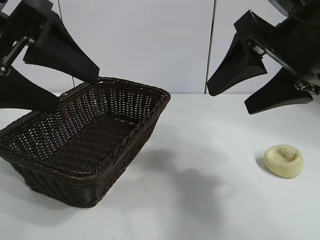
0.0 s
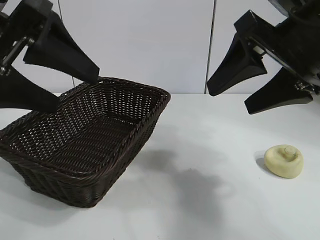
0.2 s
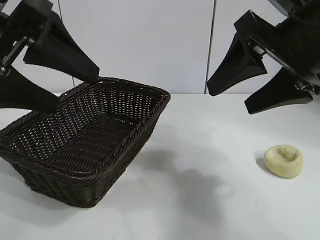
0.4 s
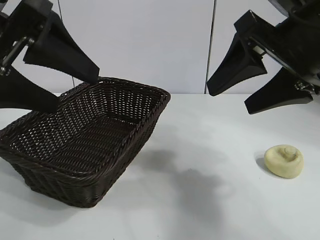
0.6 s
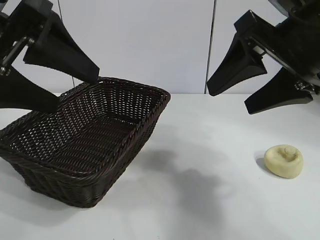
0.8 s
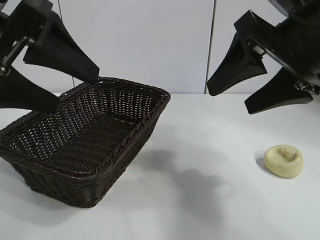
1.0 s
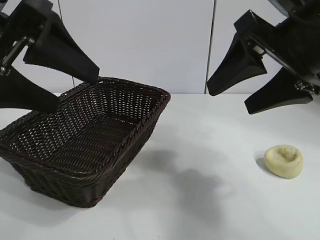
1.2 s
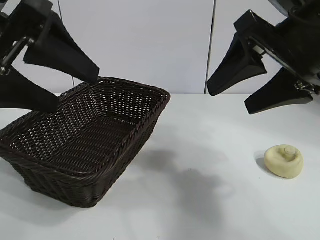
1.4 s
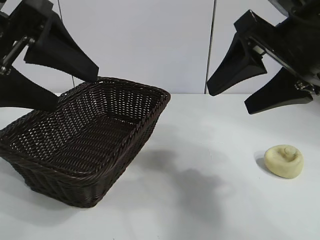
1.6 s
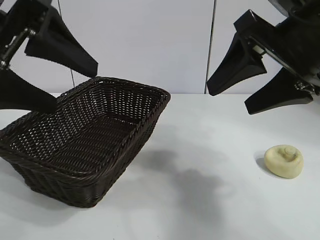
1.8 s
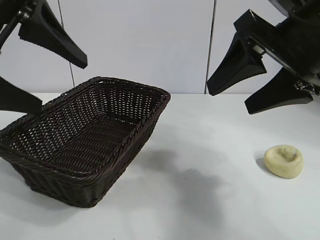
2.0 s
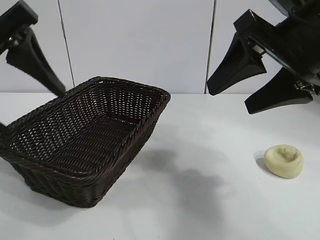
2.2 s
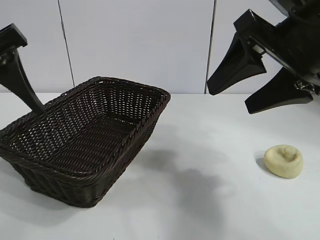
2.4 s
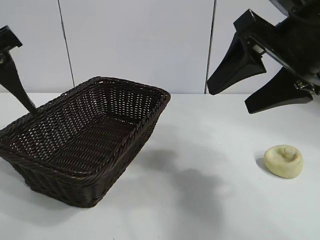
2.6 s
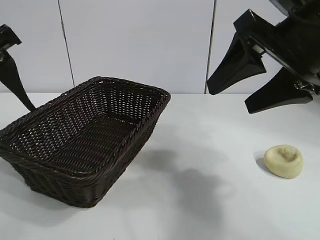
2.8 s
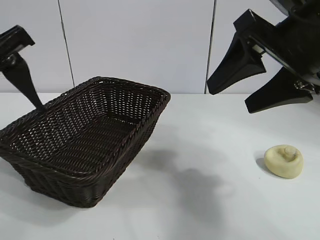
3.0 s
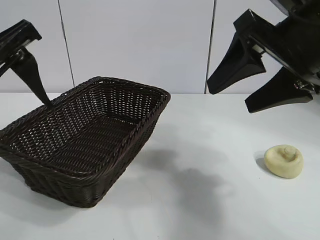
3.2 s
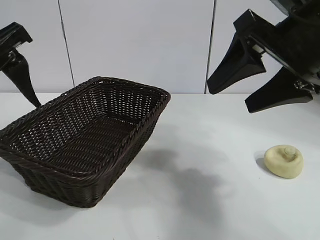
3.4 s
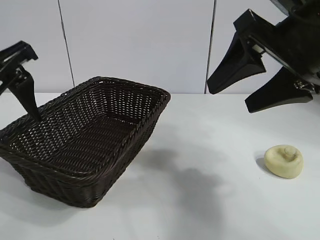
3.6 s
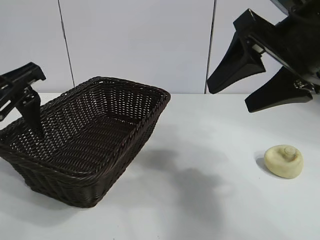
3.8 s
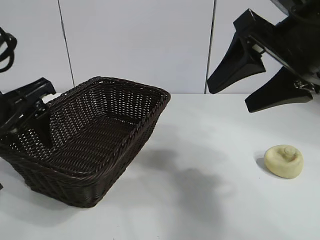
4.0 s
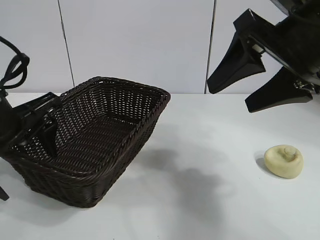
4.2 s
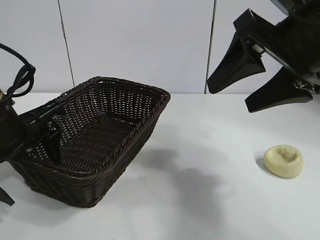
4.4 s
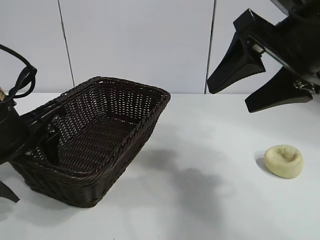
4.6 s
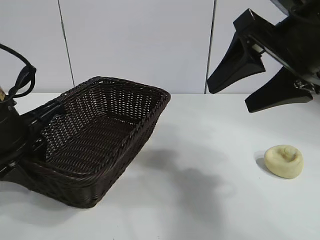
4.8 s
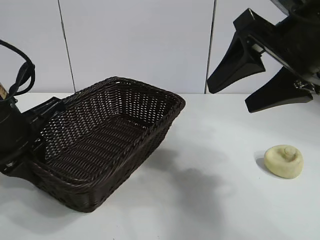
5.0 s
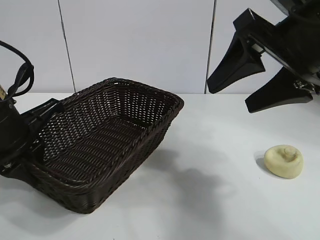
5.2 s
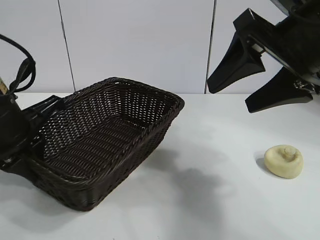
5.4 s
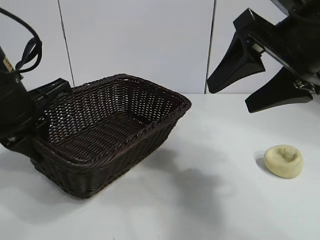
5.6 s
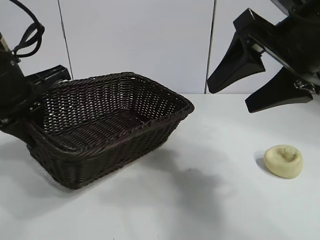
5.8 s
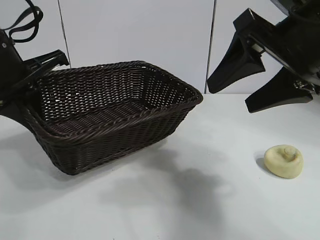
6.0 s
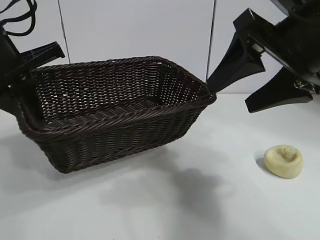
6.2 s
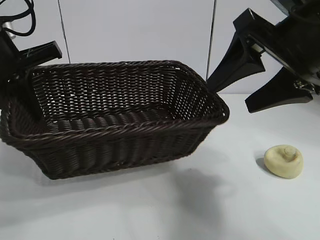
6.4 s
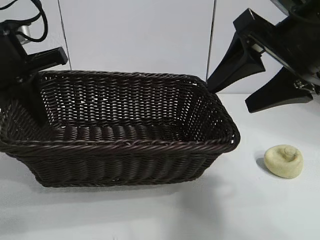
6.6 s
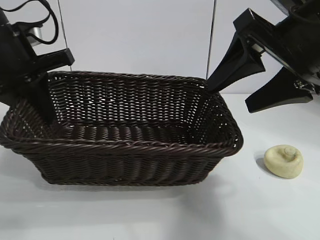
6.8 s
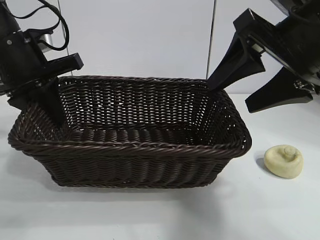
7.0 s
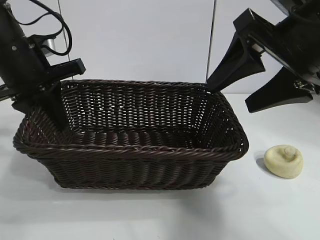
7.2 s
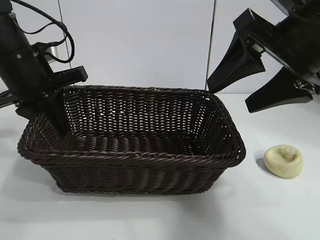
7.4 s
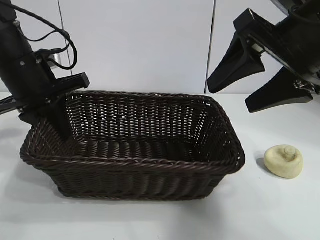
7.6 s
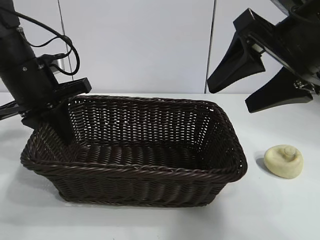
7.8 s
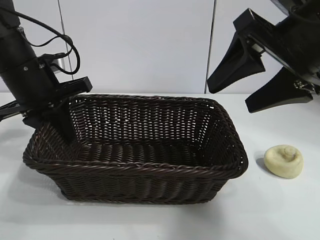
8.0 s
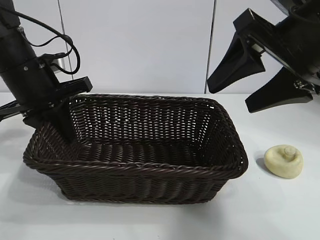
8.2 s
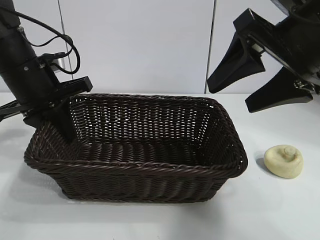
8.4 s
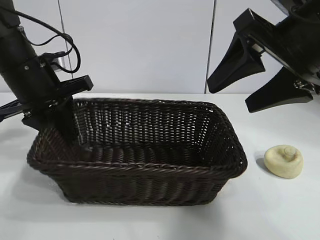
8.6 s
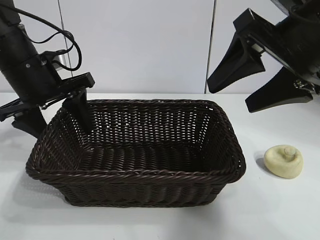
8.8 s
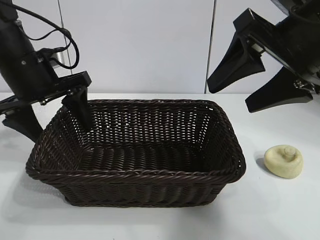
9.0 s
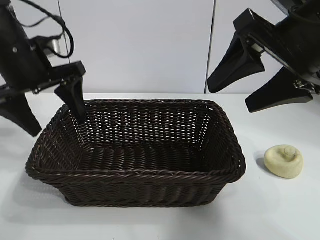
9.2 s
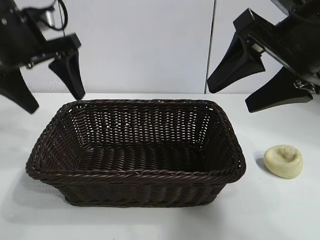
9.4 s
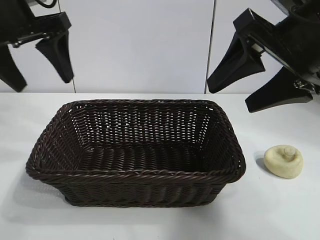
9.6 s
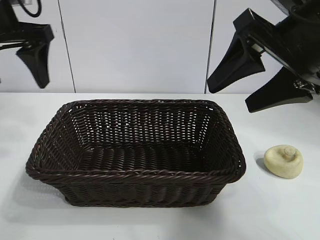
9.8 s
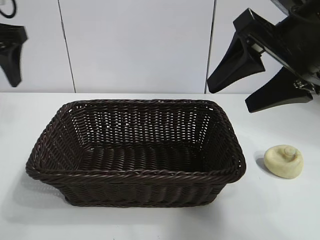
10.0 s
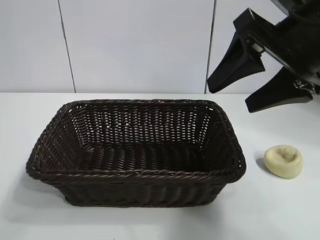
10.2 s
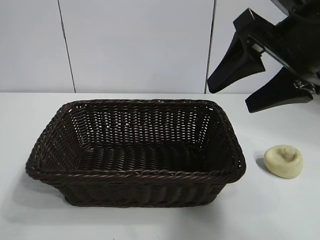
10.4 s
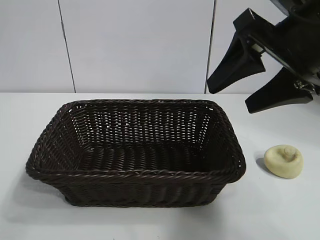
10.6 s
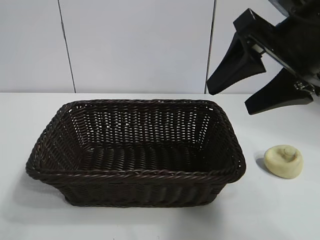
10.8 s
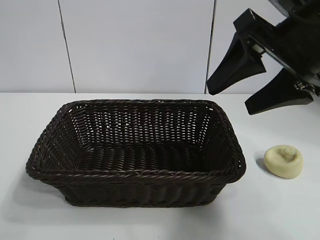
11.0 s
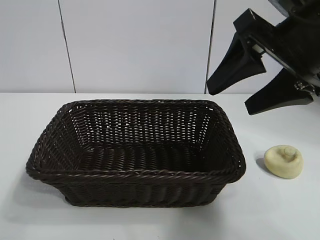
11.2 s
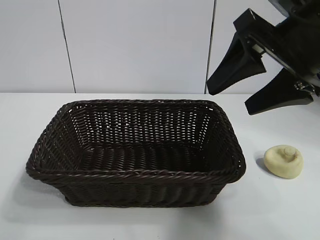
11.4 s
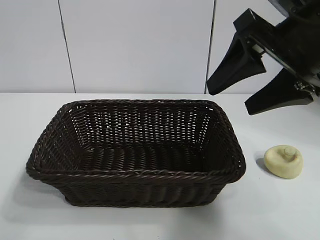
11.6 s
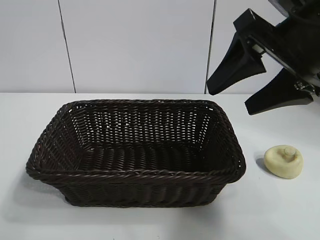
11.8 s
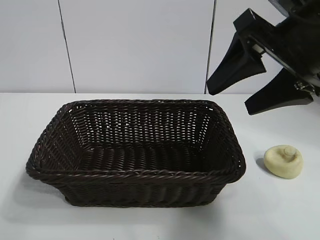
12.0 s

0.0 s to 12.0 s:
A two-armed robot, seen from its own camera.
Task of the whole recording: pick up the egg yolk pastry and put it into the basket.
Step, 1.6 to 4.8 s: Grasp the basket with left gripper.
Step, 5.0 to 8.8 s: Place the basket in the center of view with left gripper.

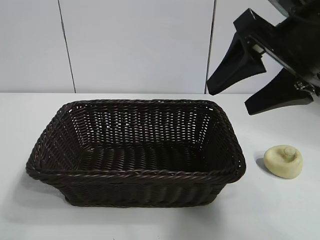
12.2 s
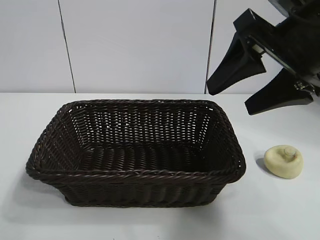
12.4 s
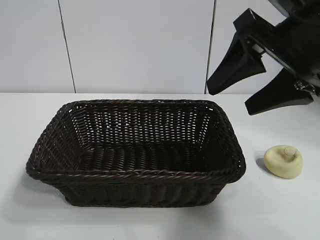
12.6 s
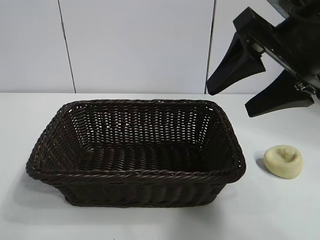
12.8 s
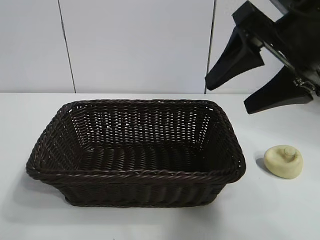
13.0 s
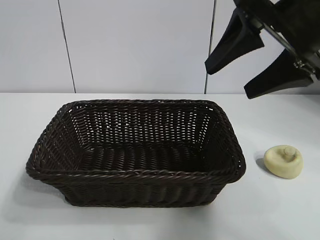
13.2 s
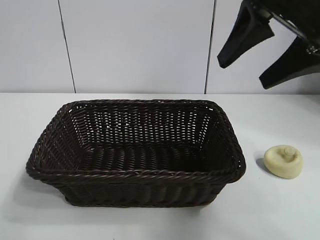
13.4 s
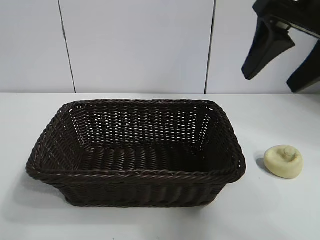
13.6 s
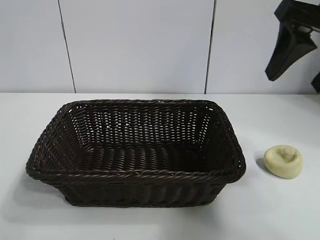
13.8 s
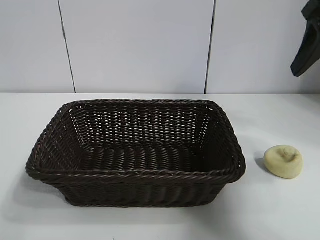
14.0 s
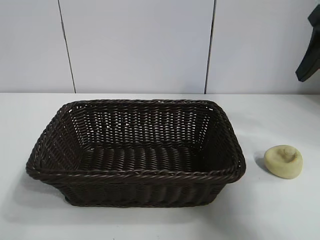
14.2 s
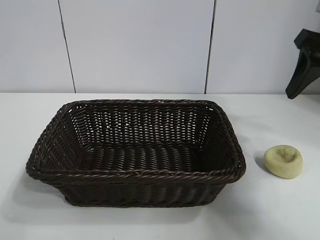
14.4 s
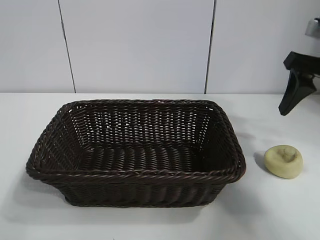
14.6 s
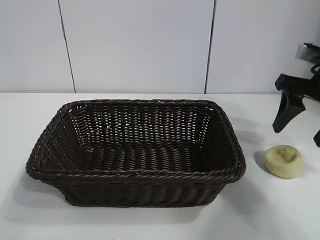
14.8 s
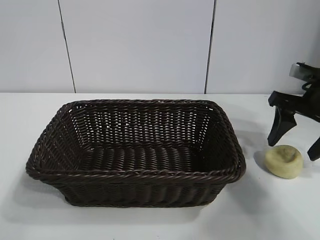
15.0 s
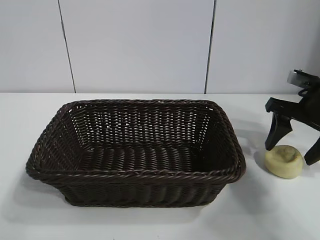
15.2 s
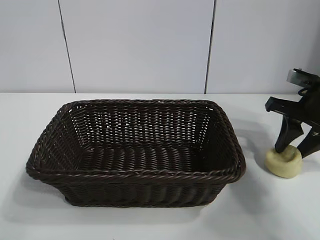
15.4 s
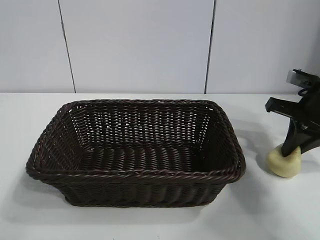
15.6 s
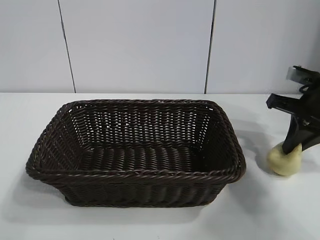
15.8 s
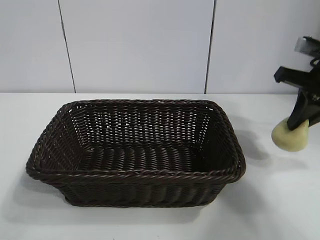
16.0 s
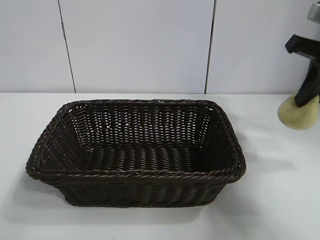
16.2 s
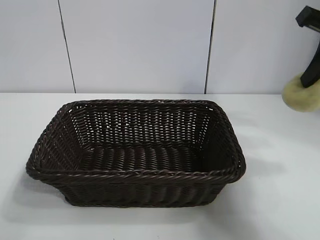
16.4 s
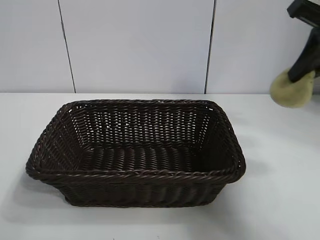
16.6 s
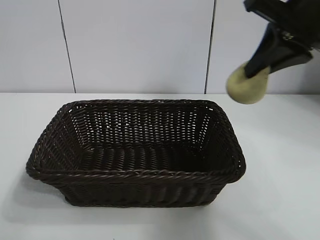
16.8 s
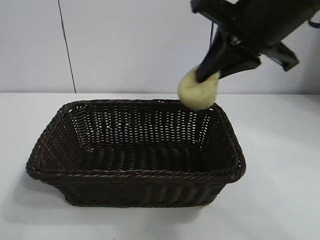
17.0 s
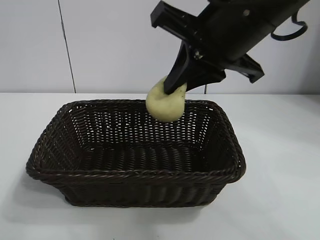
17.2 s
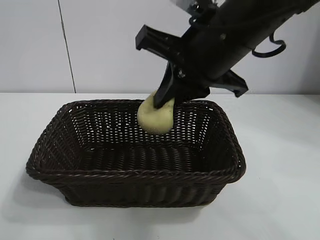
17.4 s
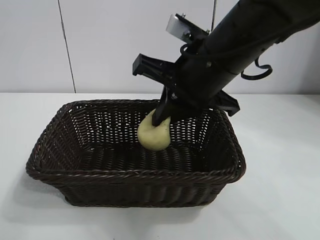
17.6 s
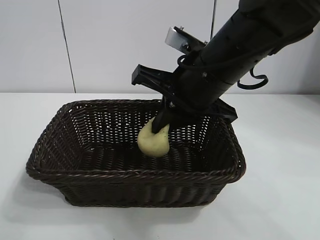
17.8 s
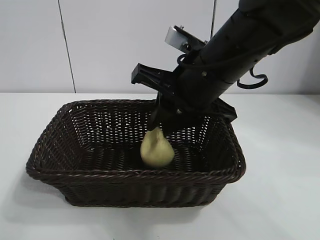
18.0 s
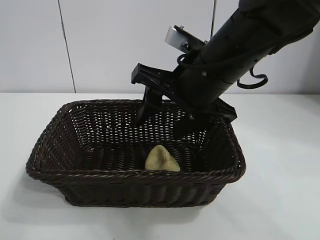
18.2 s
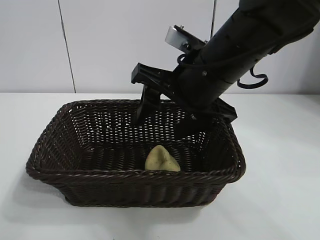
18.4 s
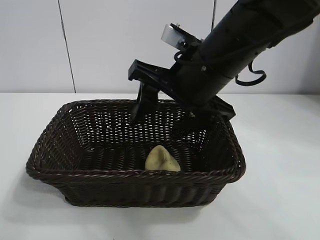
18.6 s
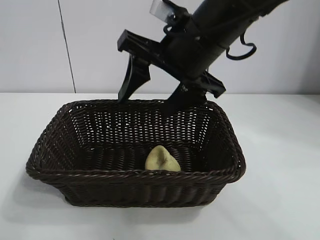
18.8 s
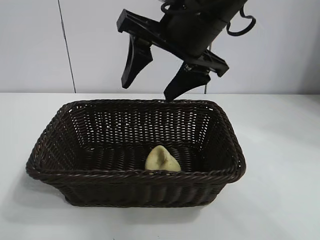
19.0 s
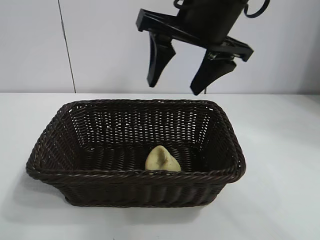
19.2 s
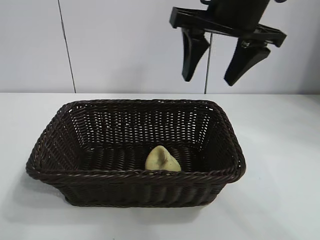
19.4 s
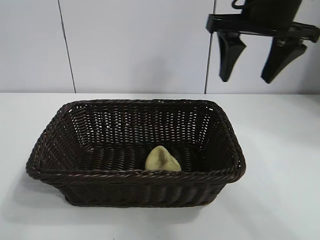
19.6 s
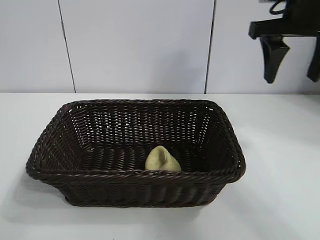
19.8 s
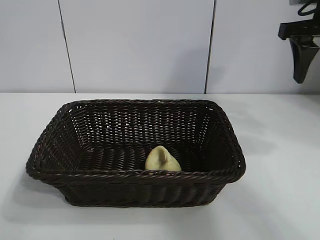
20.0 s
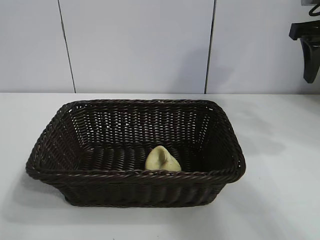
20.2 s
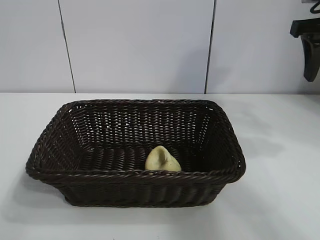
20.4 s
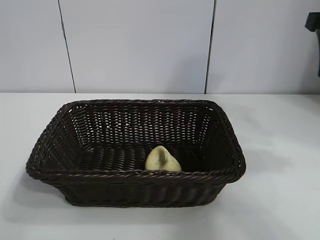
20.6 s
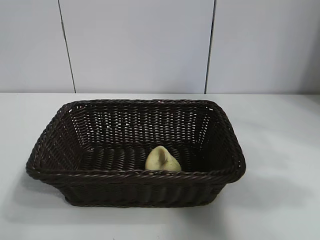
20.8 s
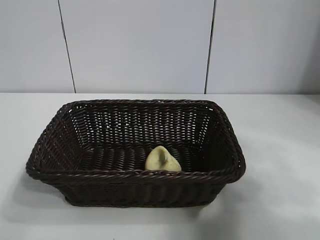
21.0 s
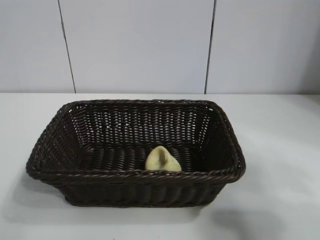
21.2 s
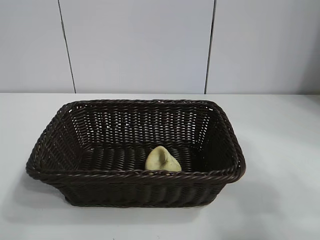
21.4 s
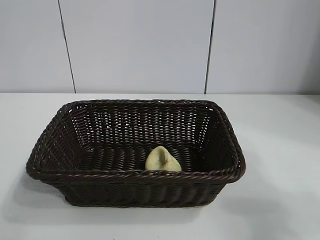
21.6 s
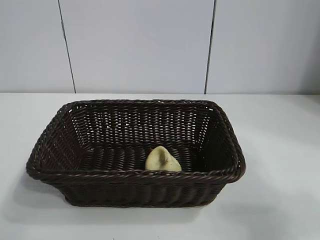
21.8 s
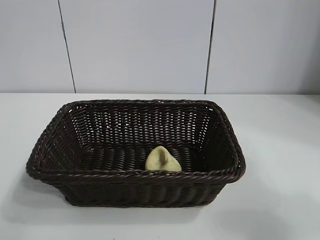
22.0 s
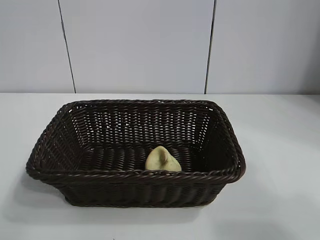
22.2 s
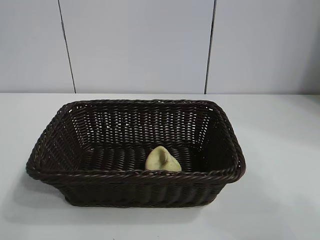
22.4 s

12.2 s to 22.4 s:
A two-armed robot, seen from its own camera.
Task of the whole recording: pick up the egg yolk pastry and put it into the basket.
Step, 12.2 to 15.6 s: Grasp egg yolk pastry with right gripper.
Step, 15.8 to 18.2 s: Place the egg yolk pastry in the basket with right gripper.

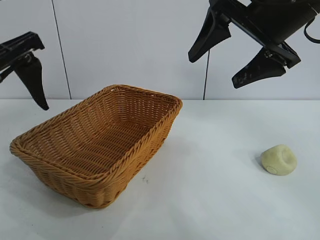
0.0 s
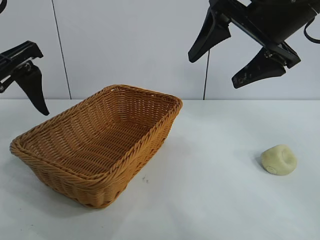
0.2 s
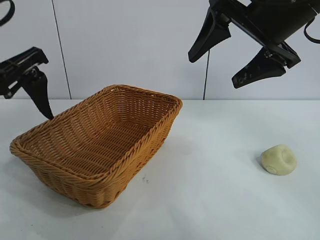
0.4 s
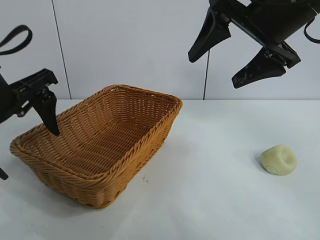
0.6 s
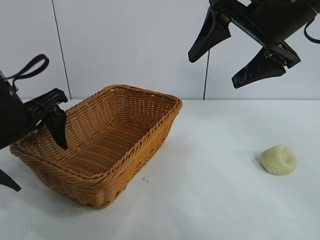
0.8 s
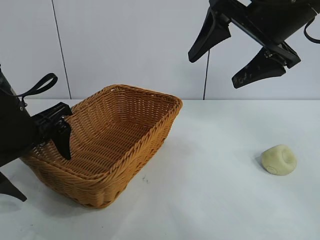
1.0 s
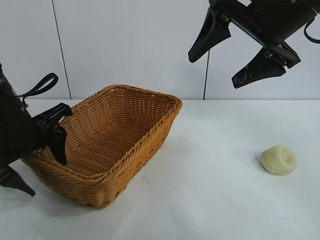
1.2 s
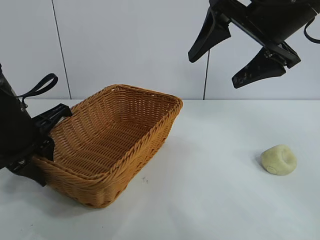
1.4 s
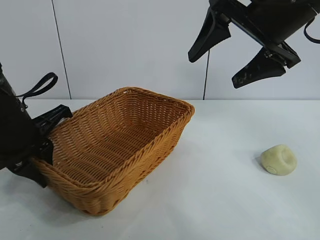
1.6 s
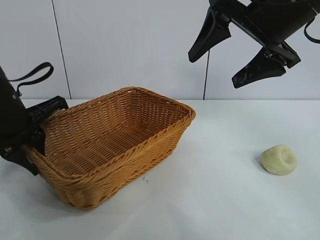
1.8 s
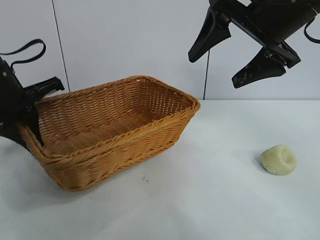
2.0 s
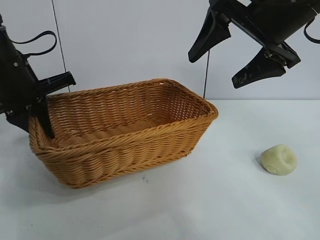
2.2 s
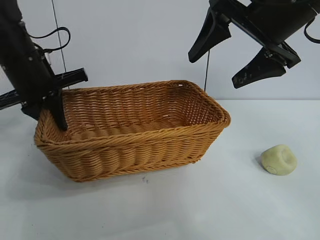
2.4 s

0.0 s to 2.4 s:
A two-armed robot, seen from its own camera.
Task of the whole recording: pick up the egg yolk pastry and put it into the basket.
Step, 0.0 to 1.4 s: Grasp the basket with left gripper.
